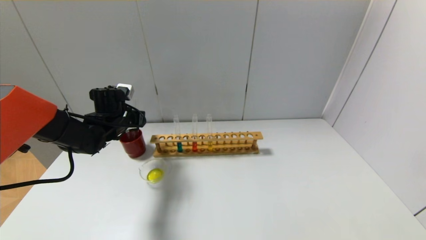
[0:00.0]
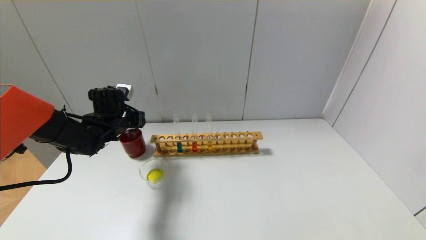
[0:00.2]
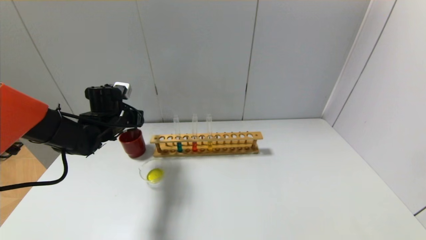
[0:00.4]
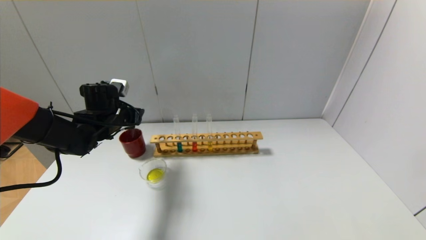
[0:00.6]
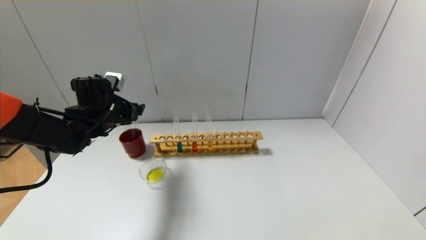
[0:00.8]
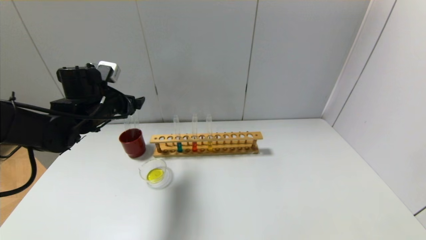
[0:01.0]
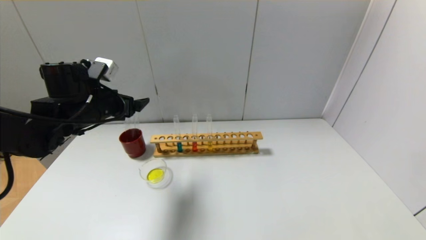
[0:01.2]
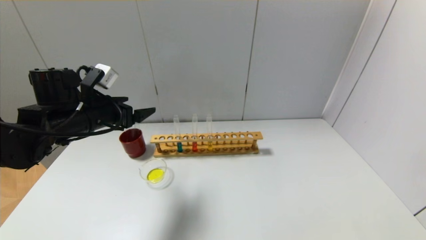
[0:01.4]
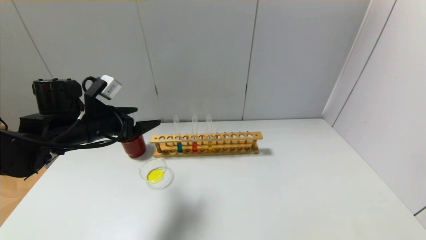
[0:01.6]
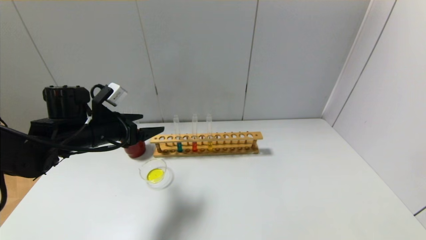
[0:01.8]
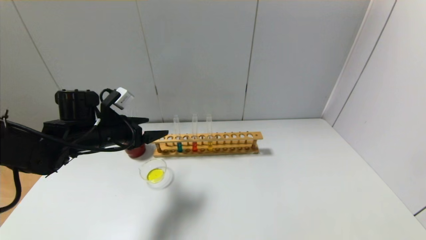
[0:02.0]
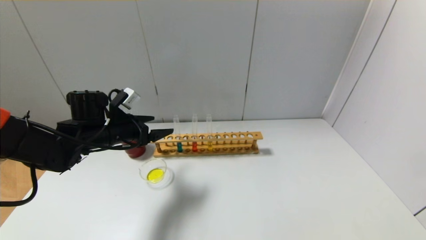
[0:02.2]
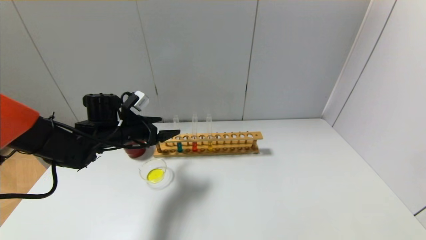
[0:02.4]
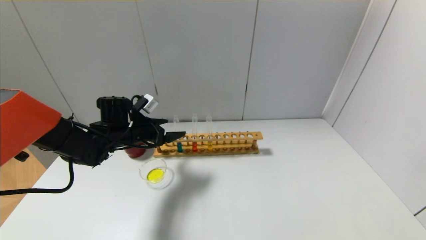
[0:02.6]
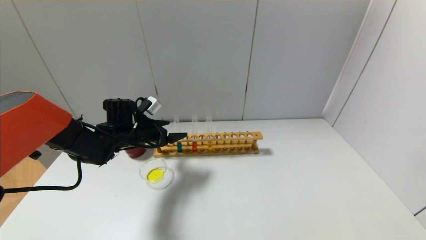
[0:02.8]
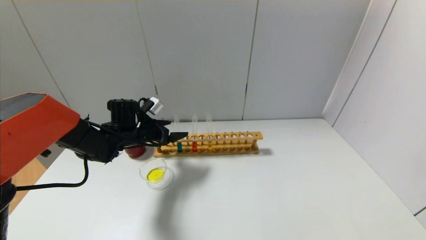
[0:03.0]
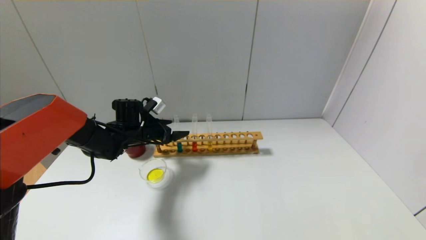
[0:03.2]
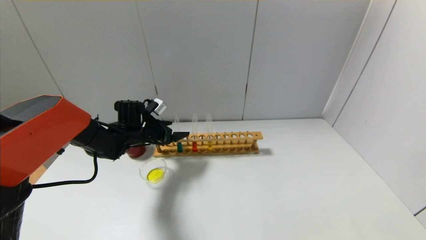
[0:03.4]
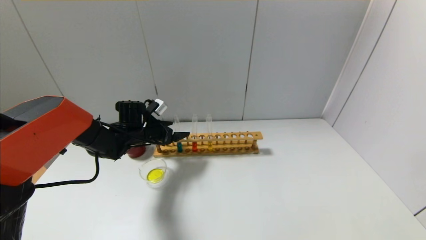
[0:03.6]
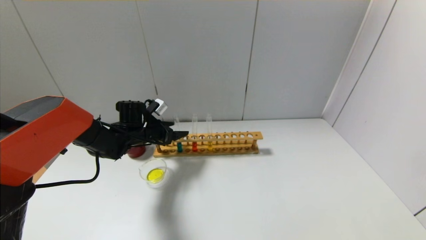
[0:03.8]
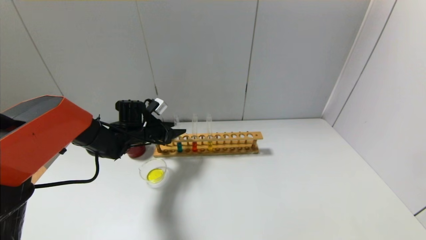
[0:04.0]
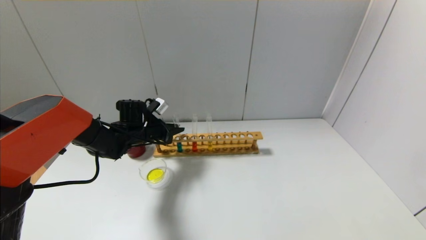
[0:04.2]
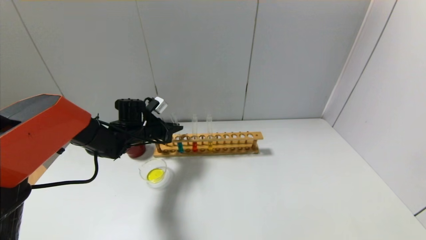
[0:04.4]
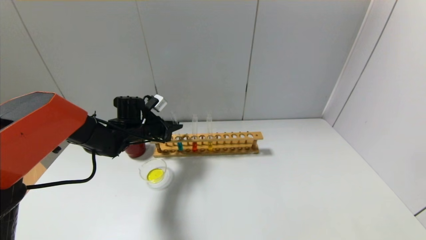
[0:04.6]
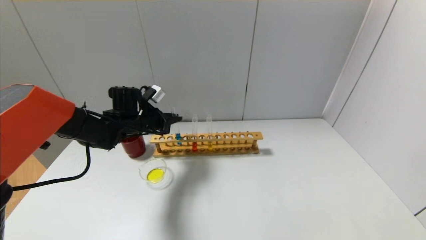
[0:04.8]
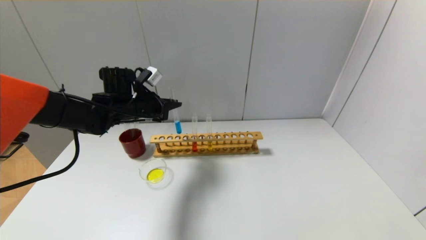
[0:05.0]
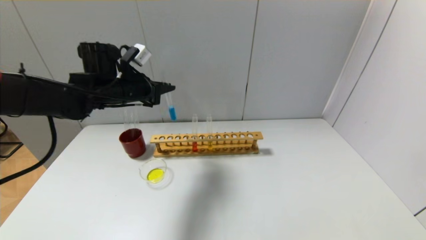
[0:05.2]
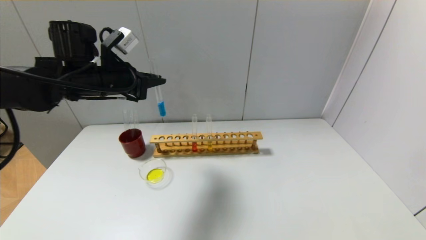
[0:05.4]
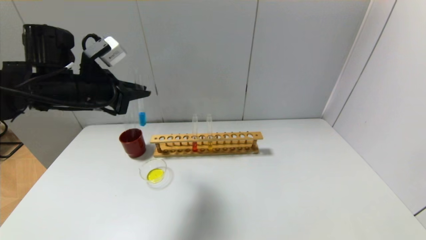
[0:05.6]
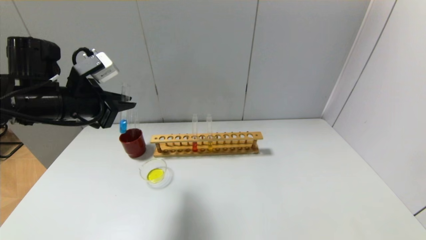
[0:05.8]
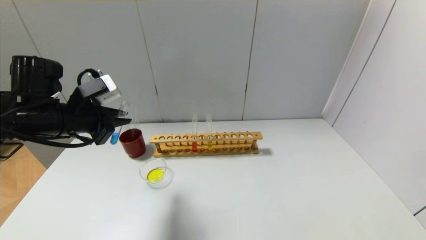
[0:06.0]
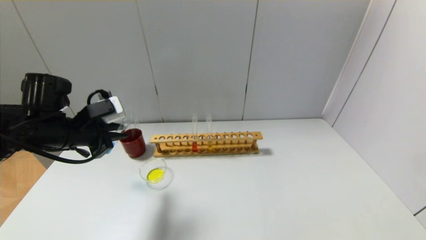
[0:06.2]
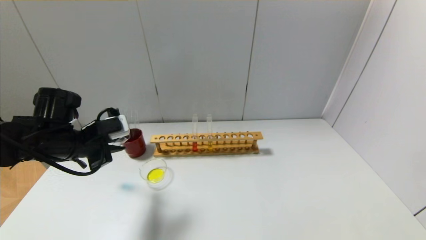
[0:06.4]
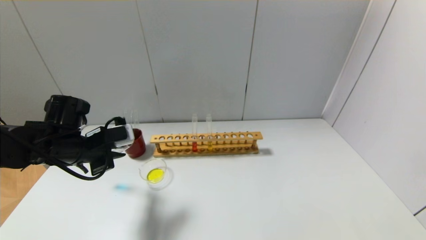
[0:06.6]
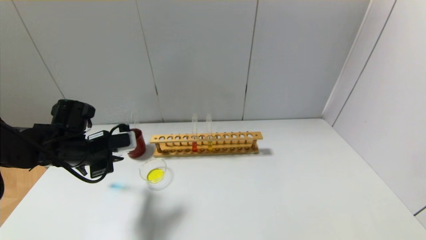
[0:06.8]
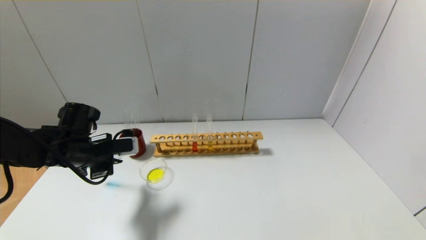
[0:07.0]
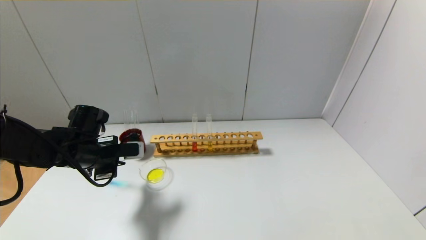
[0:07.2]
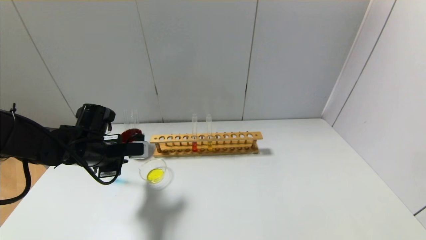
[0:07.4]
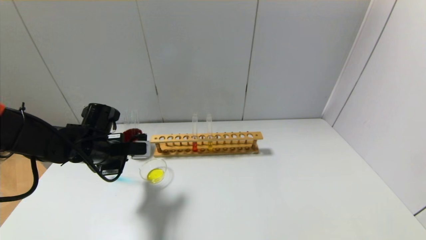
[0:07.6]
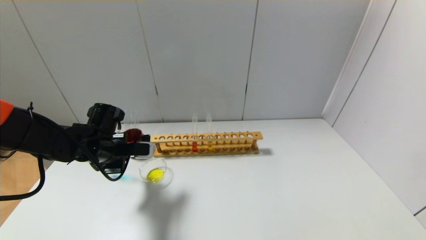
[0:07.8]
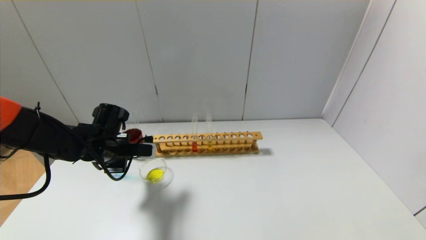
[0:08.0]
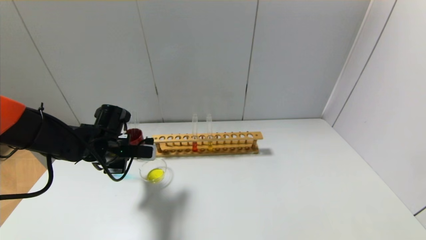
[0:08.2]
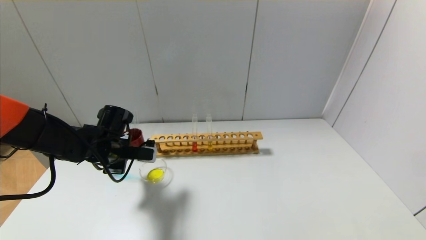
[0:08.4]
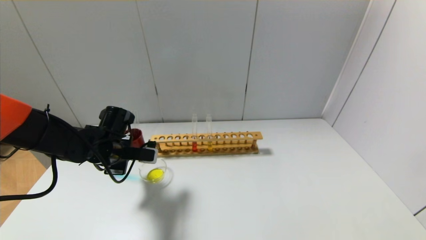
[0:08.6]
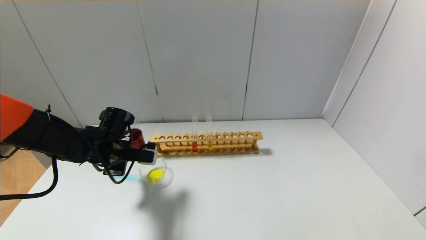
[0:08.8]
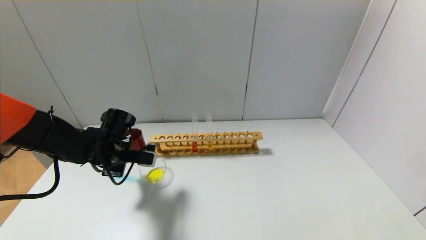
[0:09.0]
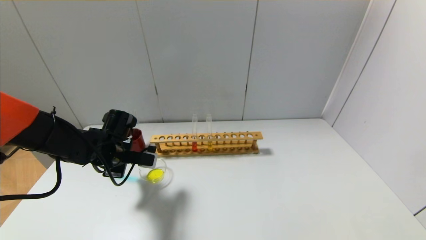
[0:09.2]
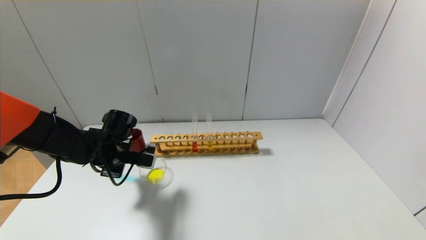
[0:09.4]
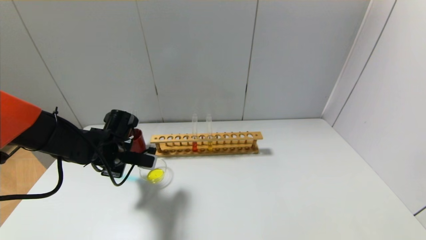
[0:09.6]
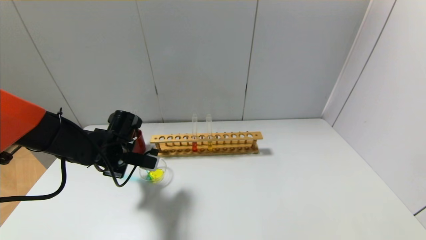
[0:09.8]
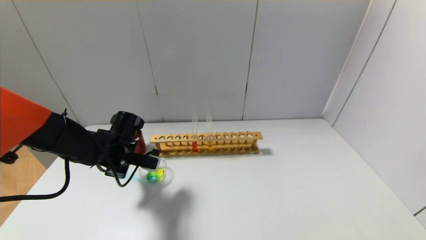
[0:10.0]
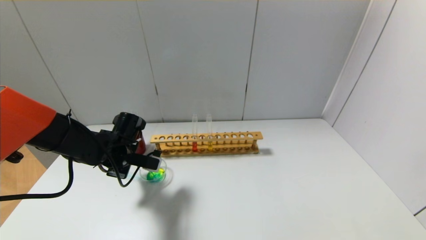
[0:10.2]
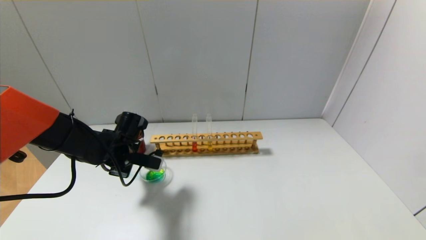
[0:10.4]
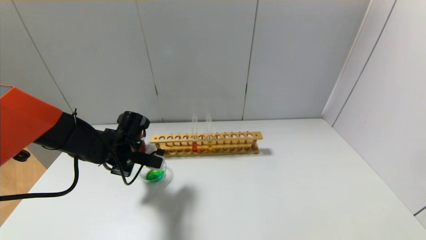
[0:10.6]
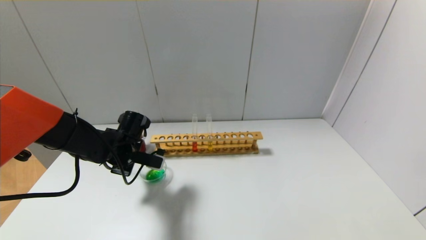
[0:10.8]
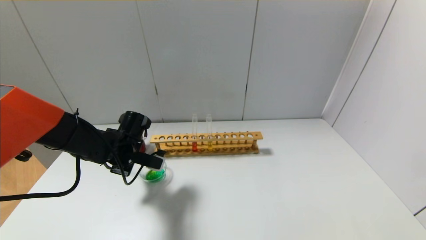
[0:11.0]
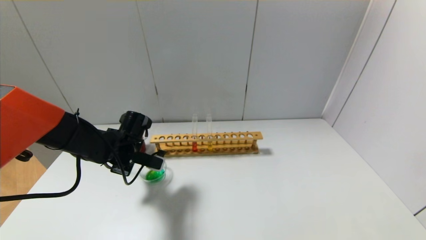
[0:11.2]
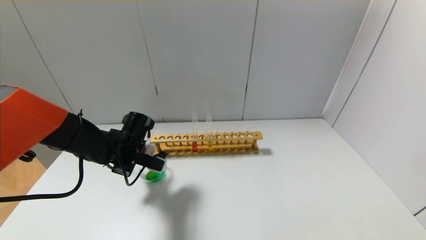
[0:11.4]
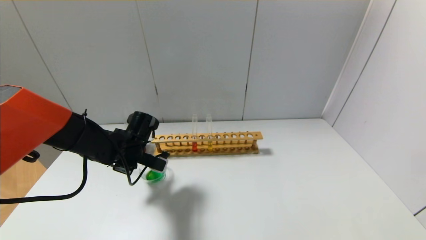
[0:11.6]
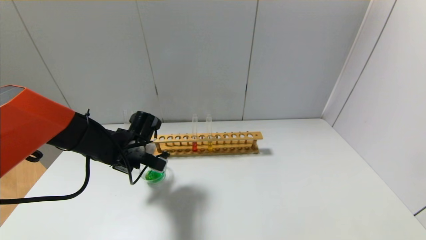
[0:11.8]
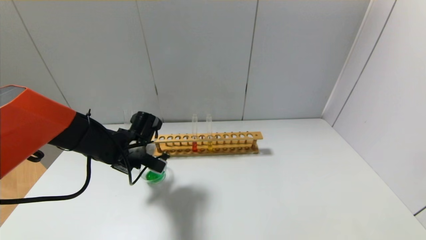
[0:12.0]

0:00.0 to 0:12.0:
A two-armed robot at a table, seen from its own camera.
Step, 0:00.6 to 0:04.2: Grasp the blue reagent with the left gripper.
0:00.0 to 0:01.6: The left gripper travels backward and upward by approximately 10 cm, and opens up.
0:01.6 to 0:03.0: The left gripper heads forward and downward, covering approximately 15 cm.
0:03.0 to 0:04.4: The left gripper closes up.
0:04.4 to 0:06.0: The left gripper heads backward, upward and to the left, covering roughly 20 cm.
0:06.0 to 0:07.6: The left gripper moves downward, some 10 cm.
0:07.6 to 0:09.0: The grippers move only a little.
0:09.0 to 0:10.4: The grippers stay close to where they were, moving slightly.
0:10.4 to 0:12.0: There are only small adjustments of the grippers.

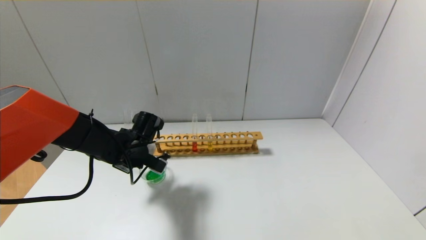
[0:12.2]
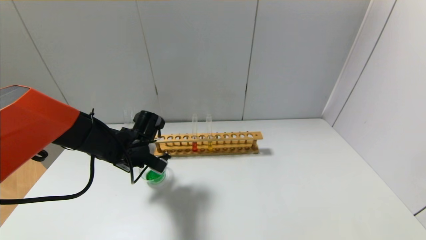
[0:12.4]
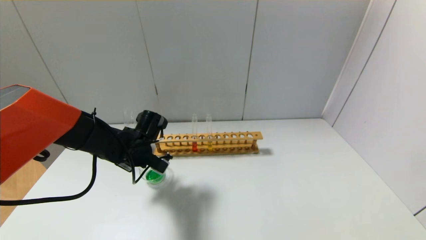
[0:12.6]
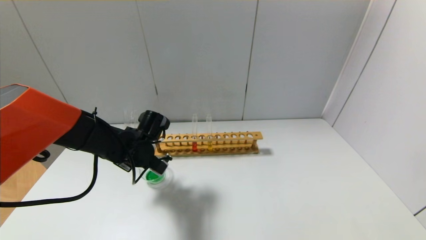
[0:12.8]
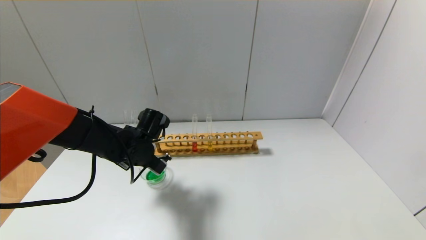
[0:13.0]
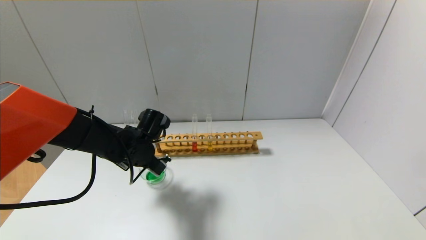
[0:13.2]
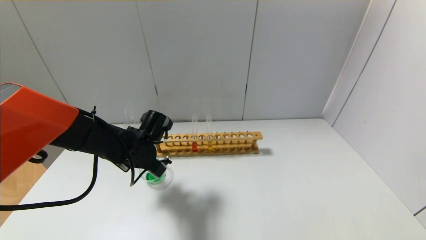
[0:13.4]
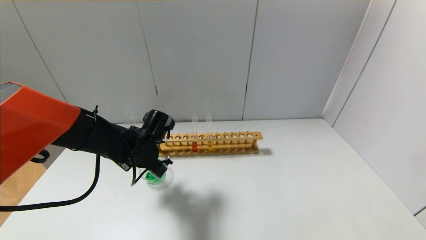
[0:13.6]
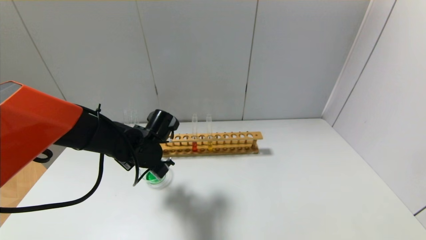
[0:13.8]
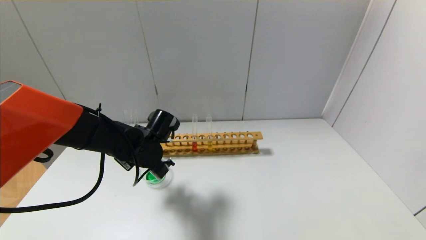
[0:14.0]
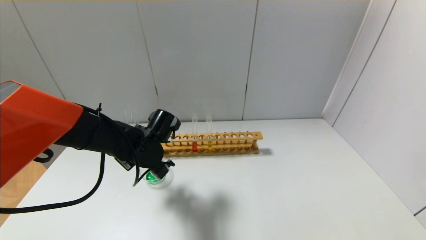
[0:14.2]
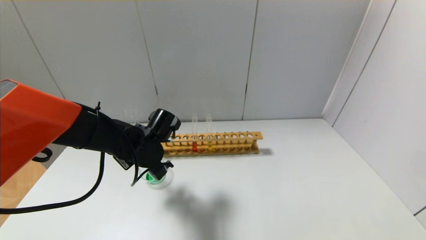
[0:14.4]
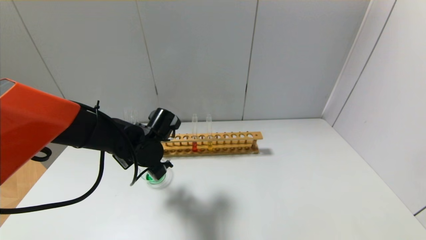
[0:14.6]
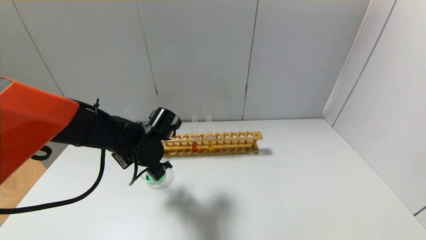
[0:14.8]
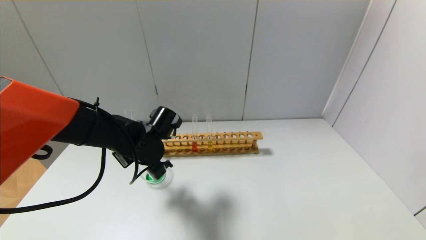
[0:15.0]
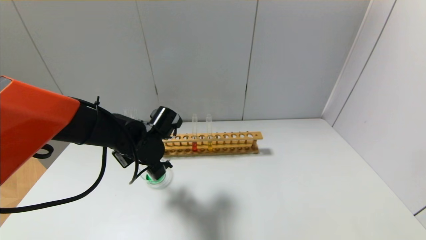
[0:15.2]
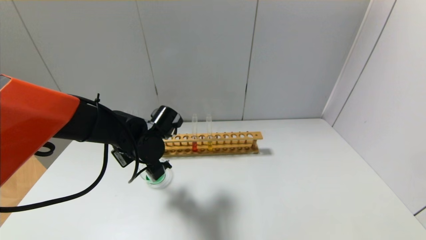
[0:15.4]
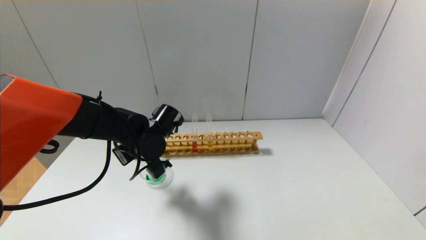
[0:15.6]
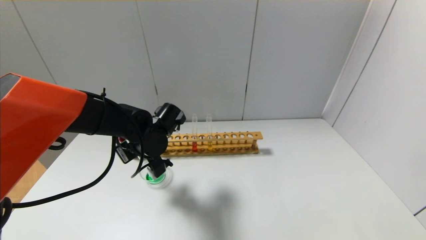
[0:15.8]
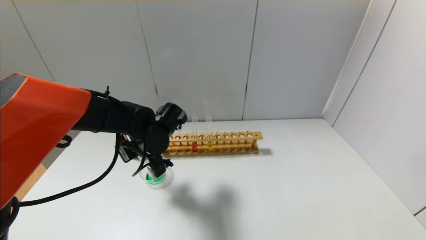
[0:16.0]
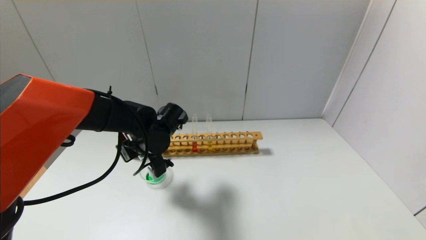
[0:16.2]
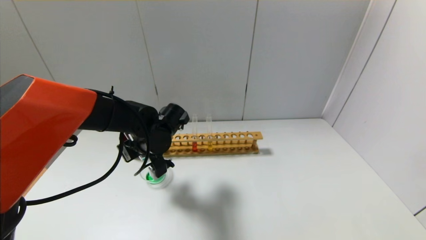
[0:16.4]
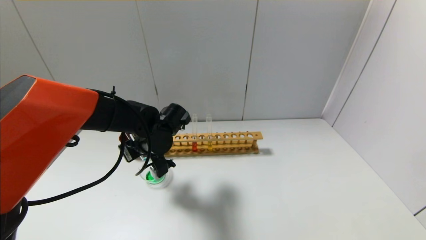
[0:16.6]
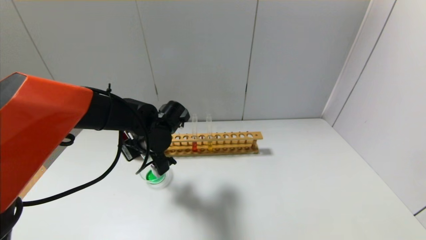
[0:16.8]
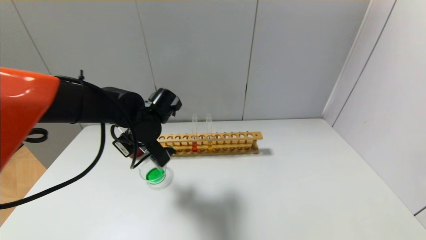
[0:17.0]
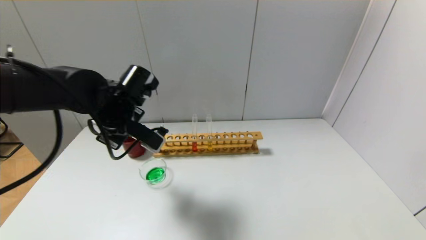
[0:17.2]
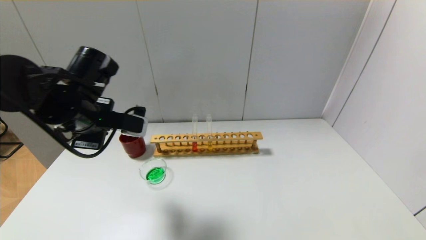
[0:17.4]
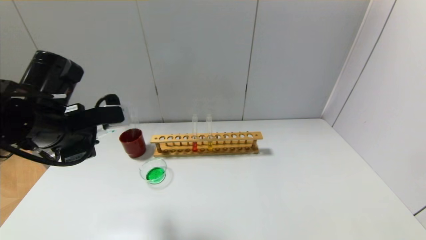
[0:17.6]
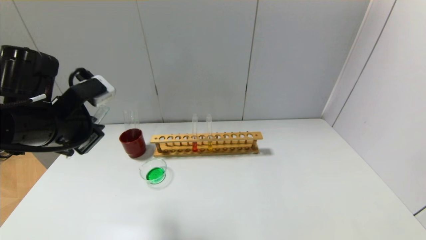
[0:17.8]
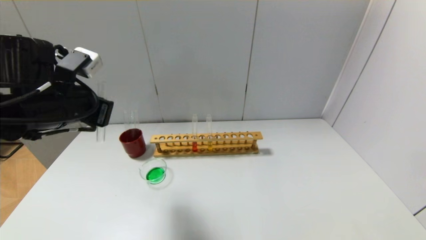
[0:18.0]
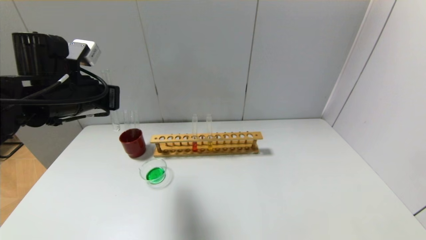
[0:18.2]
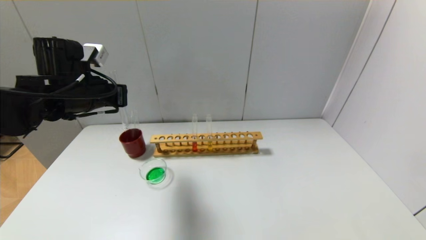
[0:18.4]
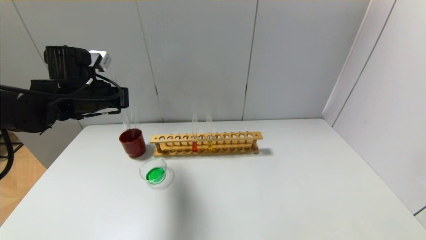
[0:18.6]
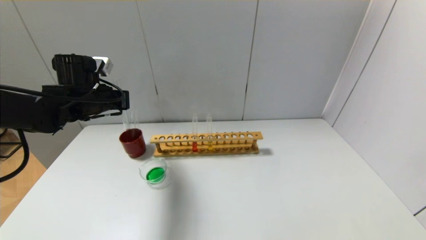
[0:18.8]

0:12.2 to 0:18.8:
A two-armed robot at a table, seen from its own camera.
Step, 0:12.2 to 0:16.8: Pour the blue reagent into the graduated cylinder with the left gripper.
0:12.2 to 0:13.8: There are only small adjustments of the grippers.
0:13.8 to 0:15.4: The grippers make only small movements.
0:15.4 to 0:17.2: The left gripper moves upward, approximately 10 cm.
0:17.2 to 0:18.8: The left gripper shifts some 10 cm to the left.
